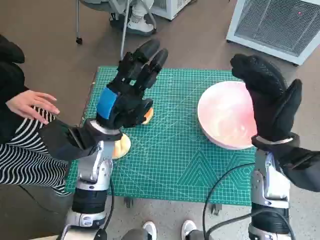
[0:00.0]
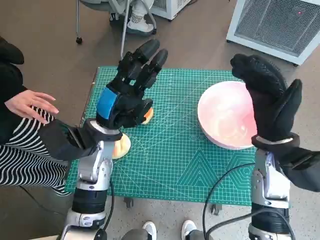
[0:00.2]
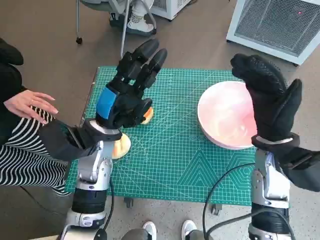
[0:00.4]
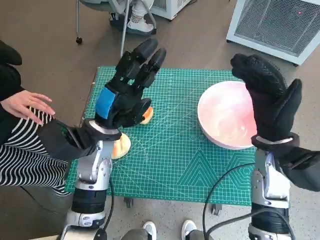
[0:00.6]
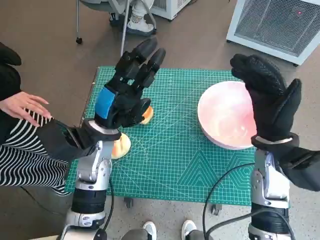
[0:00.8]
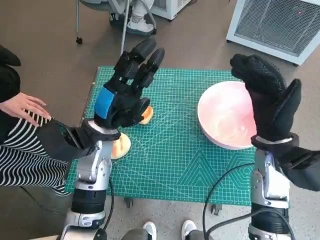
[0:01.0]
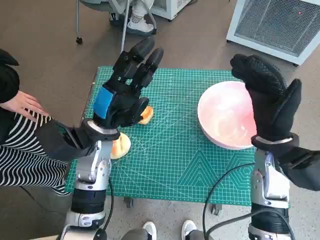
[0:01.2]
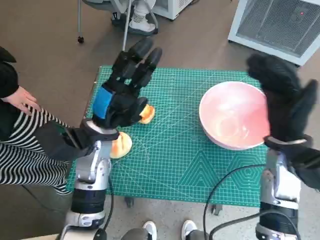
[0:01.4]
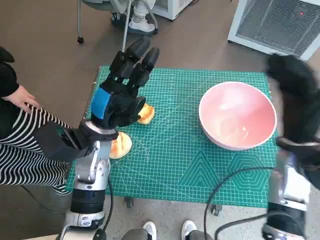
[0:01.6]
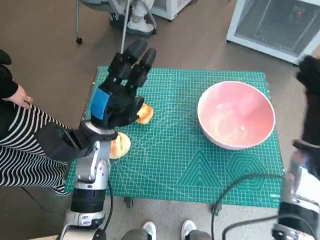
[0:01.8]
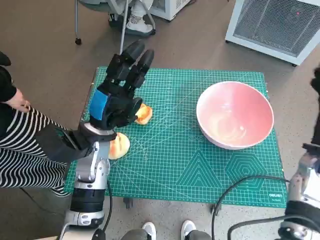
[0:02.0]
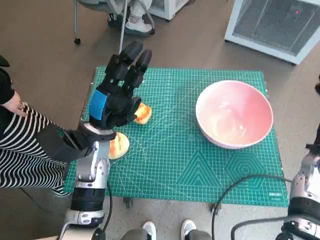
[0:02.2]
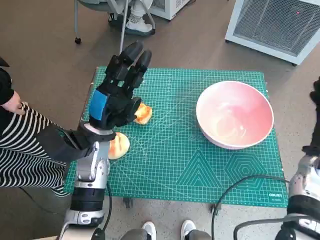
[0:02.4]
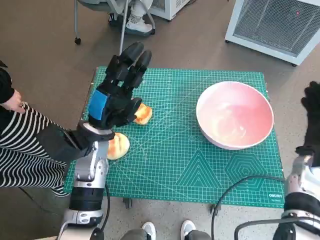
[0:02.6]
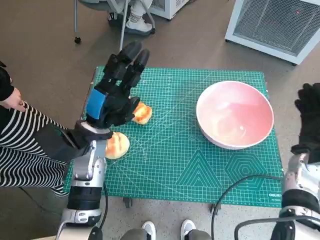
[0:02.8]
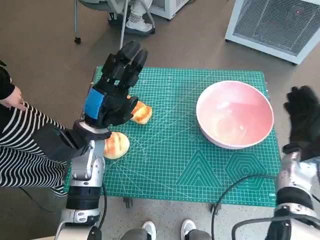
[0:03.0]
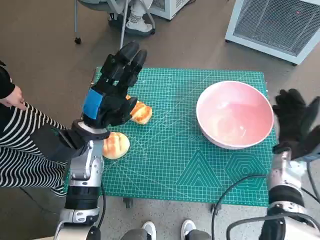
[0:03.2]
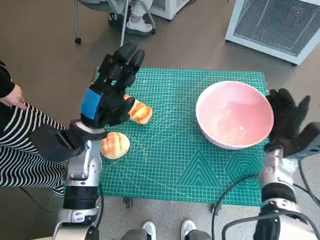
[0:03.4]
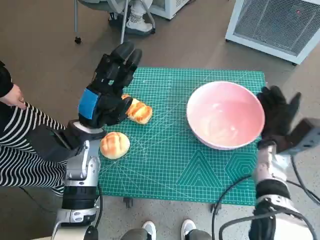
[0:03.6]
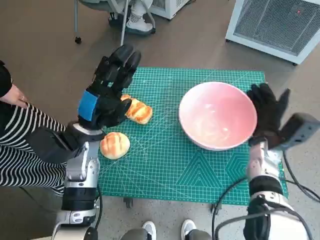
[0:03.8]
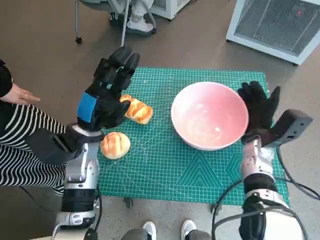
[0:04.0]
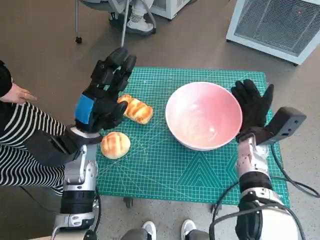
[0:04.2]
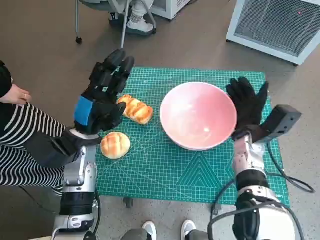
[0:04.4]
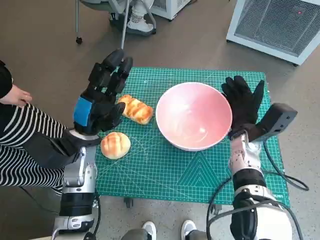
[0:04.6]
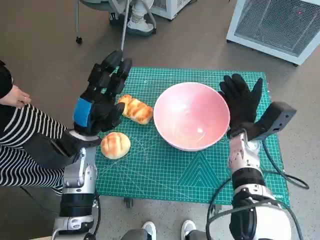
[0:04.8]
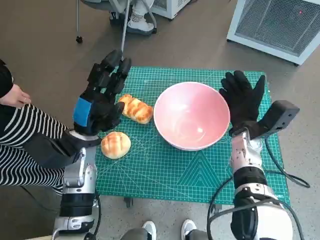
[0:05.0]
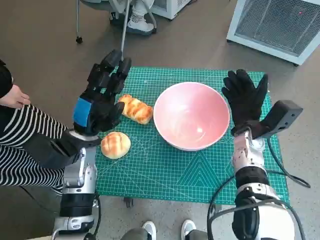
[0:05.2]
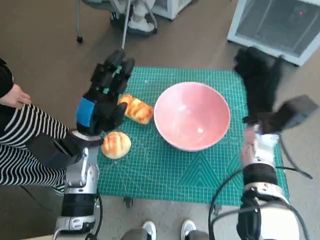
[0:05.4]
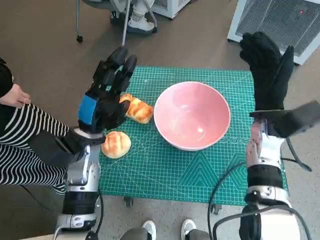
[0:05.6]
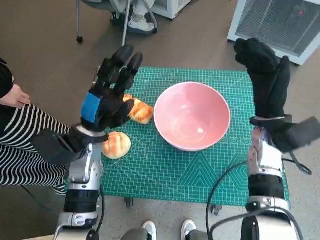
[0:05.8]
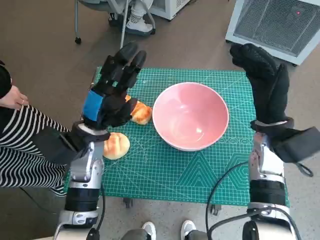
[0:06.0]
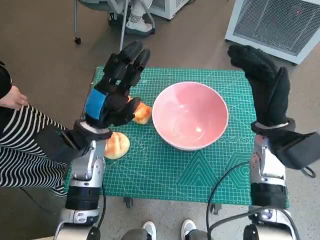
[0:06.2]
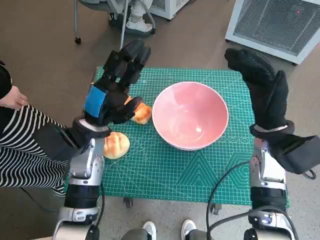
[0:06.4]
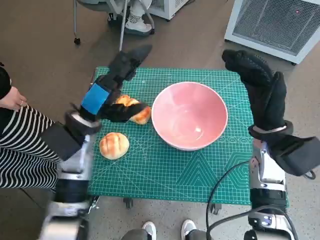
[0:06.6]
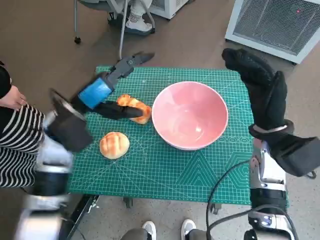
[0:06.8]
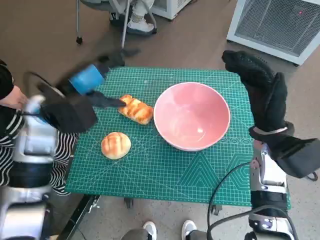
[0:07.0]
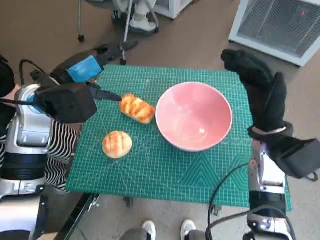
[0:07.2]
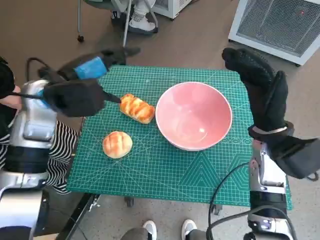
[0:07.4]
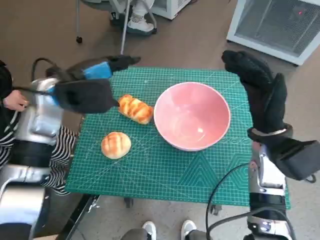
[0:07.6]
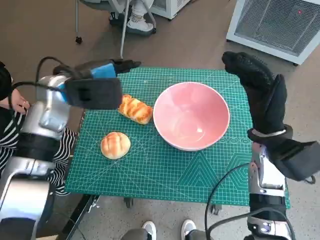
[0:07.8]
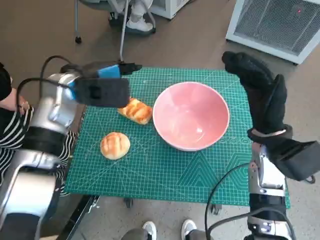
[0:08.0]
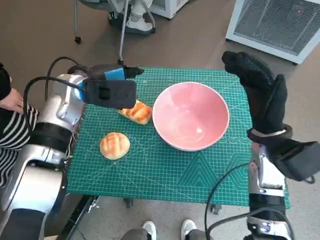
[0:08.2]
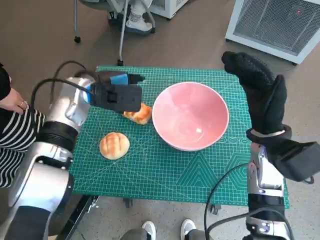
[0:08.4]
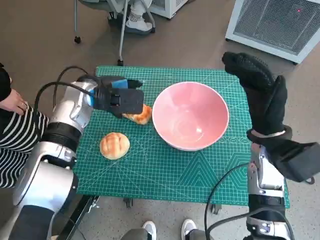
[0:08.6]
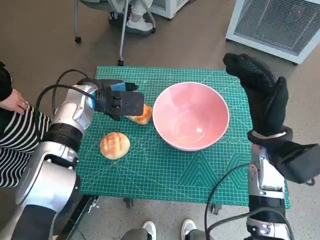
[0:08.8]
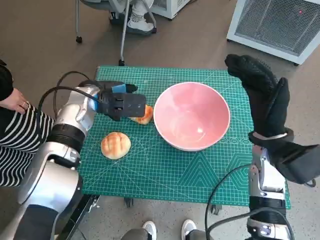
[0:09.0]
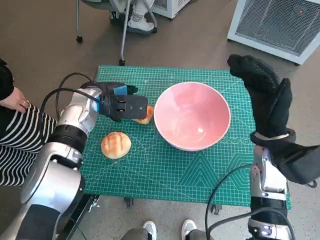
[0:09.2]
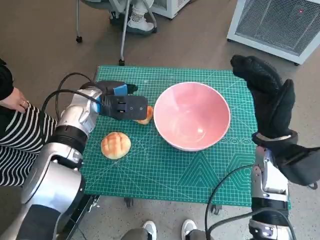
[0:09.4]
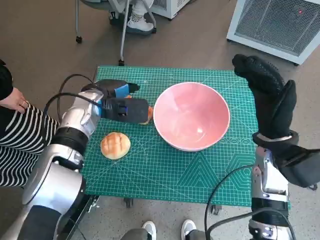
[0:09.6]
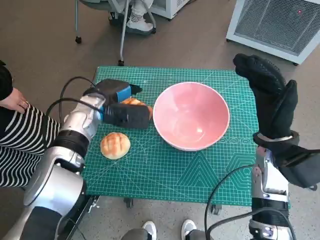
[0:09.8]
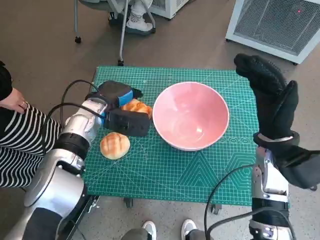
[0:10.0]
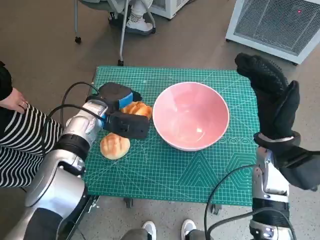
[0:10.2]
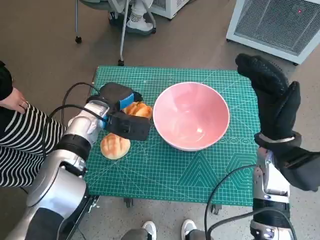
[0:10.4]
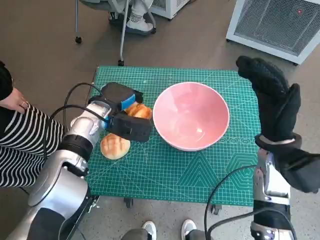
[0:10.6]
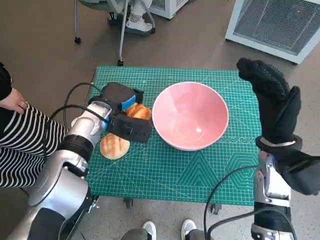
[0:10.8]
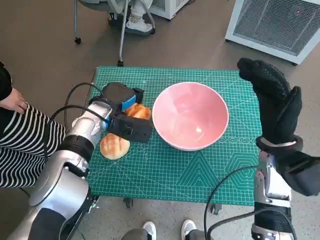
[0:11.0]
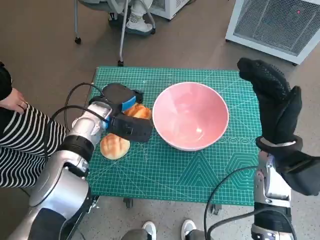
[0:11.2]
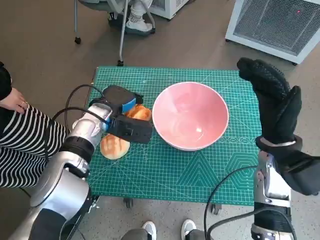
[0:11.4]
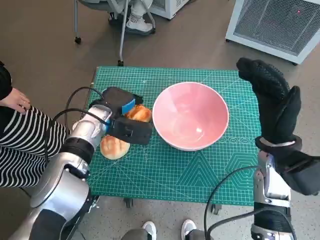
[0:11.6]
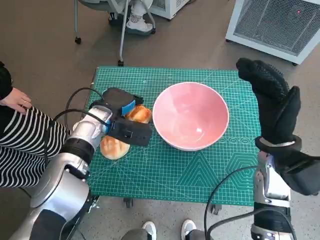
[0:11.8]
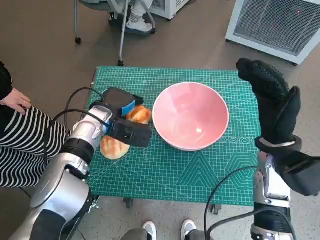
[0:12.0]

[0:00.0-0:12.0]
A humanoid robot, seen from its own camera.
Task of the whole recording: Push the bowl into the center of the table and put the bread into the bowl.
Step, 0:00.0 to 0:05.0: Move the pink bowl to the center of table with right hand.
Step, 0:05.2 to 0:10.8: Grasp the long bread with left hand.
0:01.6 to 0:03.0: The right hand is displaced downward by some 10 cm.
0:03.0 to 0:04.4: The right hand goes roughly 10 cm to the left.
0:04.4 to 0:06.0: The right hand travels upward by approximately 10 cm.
0:06.0 to 0:07.6: The left hand travels upward and forward by about 10 cm.
0:07.6 to 0:09.0: The left hand is displaced downward by roughly 5 cm.
0:10.4 to 0:12.0: There are only small adjustments of the hands.

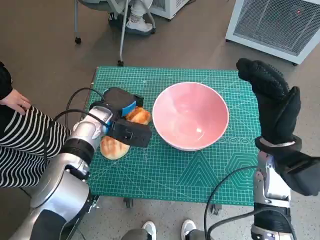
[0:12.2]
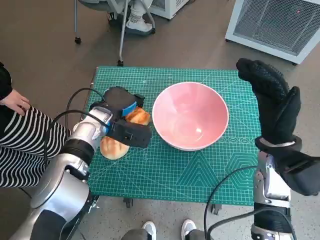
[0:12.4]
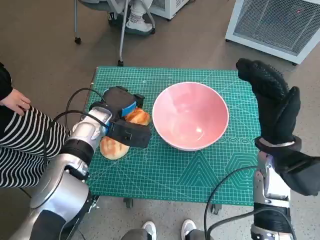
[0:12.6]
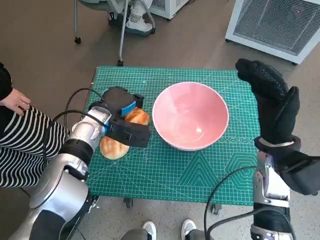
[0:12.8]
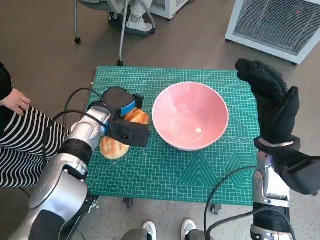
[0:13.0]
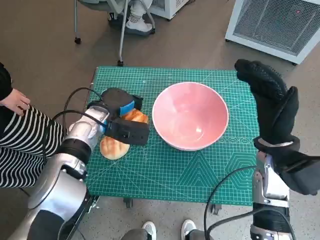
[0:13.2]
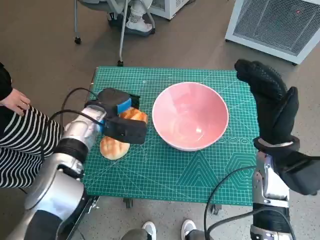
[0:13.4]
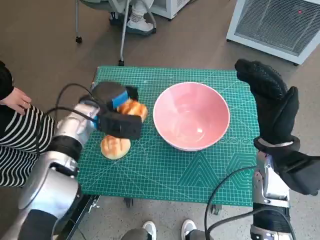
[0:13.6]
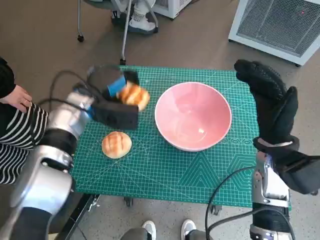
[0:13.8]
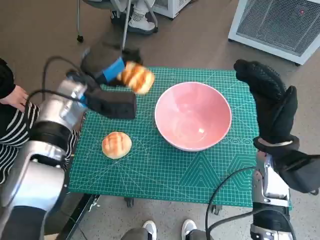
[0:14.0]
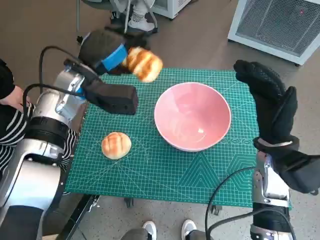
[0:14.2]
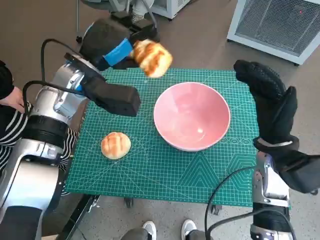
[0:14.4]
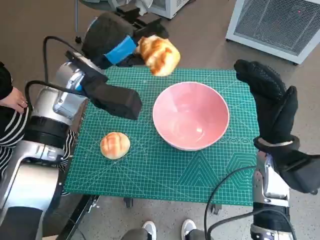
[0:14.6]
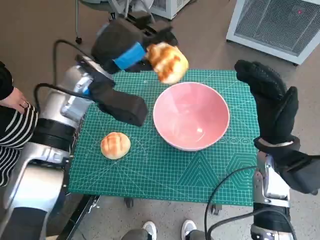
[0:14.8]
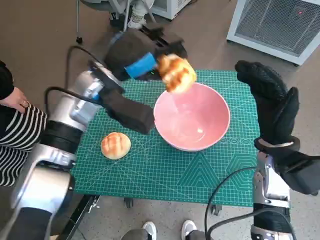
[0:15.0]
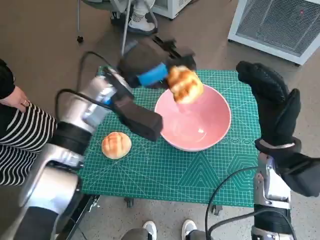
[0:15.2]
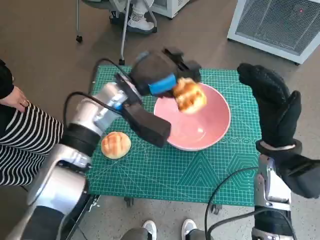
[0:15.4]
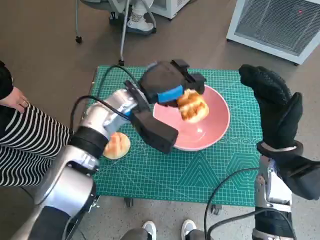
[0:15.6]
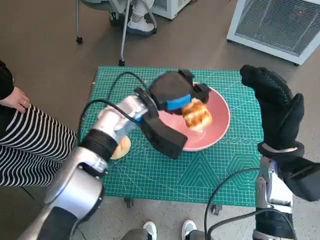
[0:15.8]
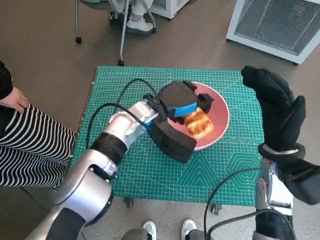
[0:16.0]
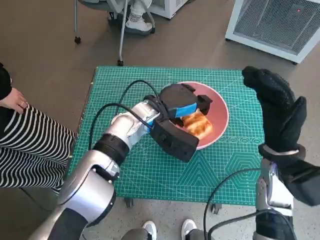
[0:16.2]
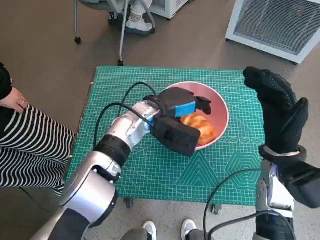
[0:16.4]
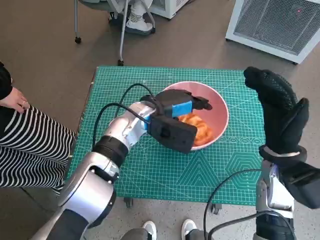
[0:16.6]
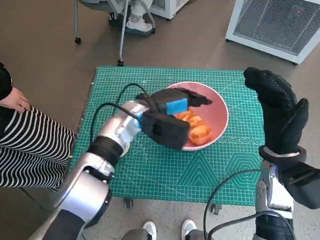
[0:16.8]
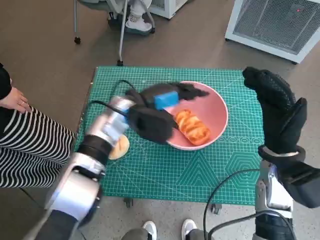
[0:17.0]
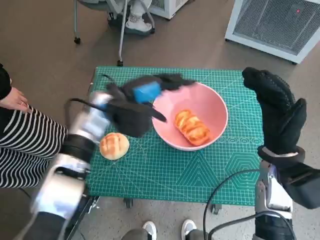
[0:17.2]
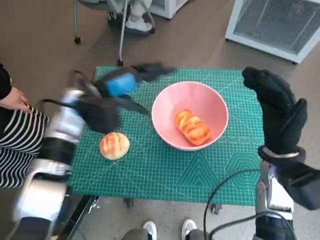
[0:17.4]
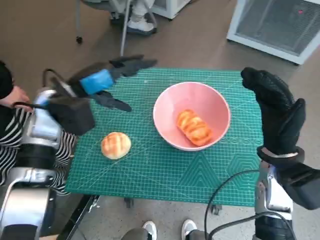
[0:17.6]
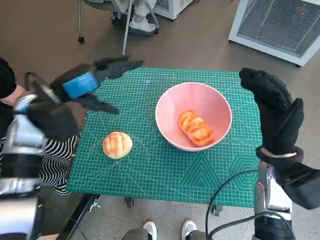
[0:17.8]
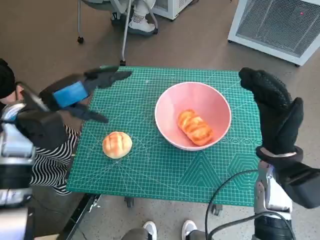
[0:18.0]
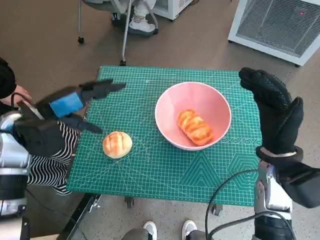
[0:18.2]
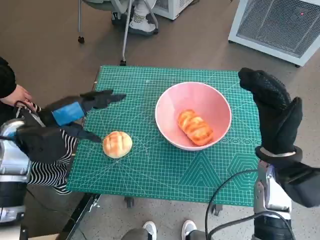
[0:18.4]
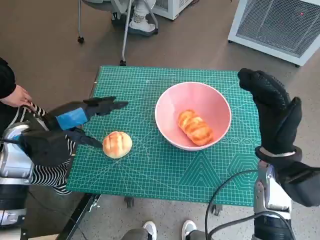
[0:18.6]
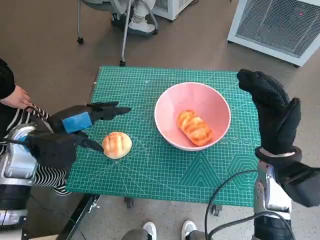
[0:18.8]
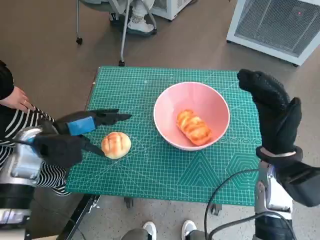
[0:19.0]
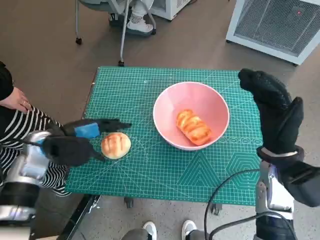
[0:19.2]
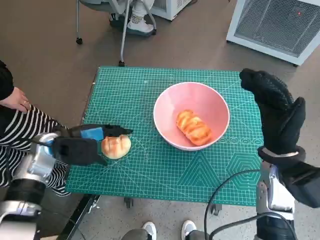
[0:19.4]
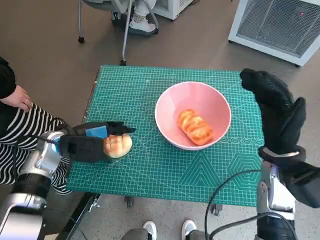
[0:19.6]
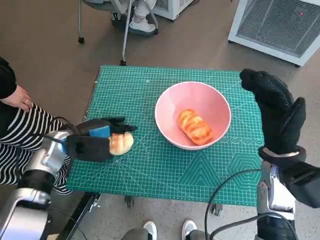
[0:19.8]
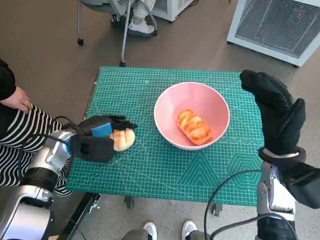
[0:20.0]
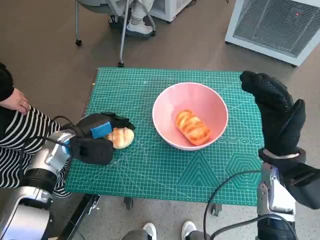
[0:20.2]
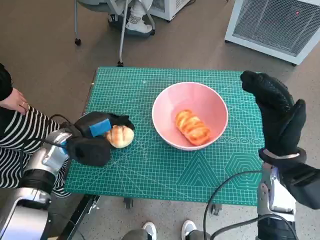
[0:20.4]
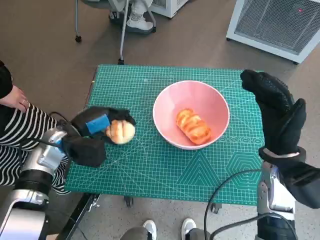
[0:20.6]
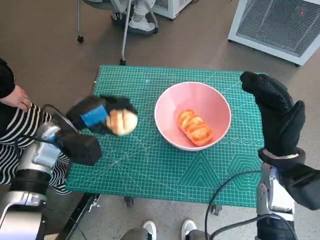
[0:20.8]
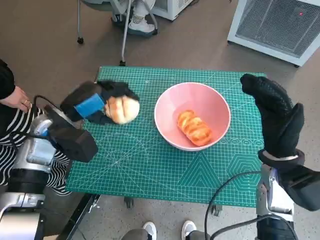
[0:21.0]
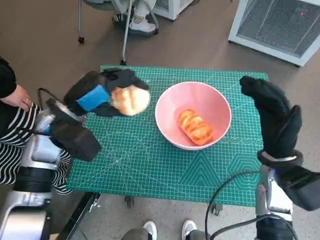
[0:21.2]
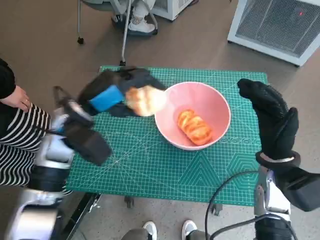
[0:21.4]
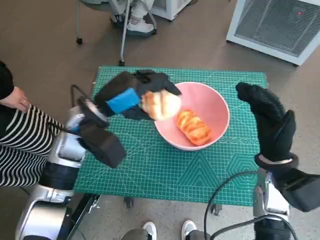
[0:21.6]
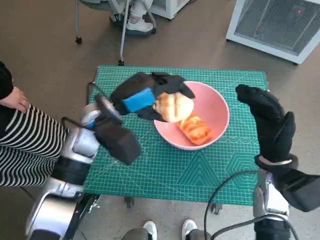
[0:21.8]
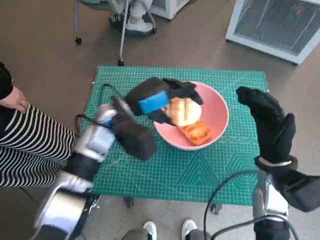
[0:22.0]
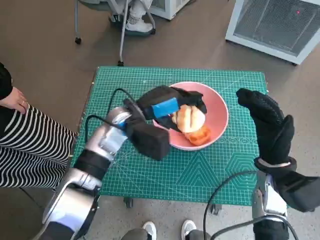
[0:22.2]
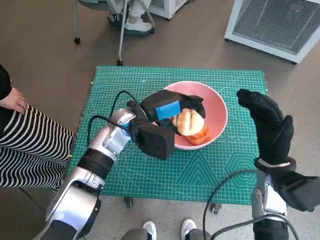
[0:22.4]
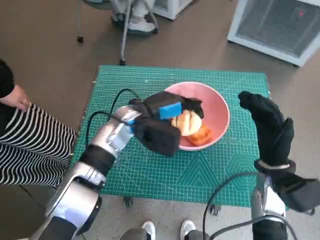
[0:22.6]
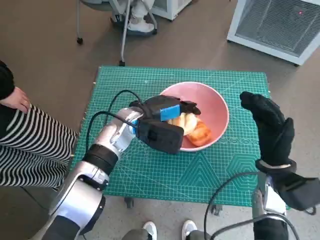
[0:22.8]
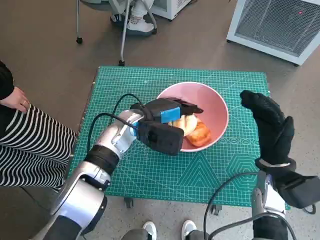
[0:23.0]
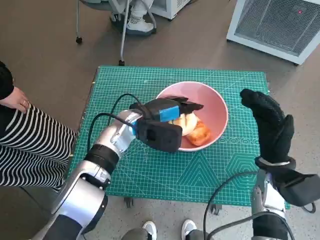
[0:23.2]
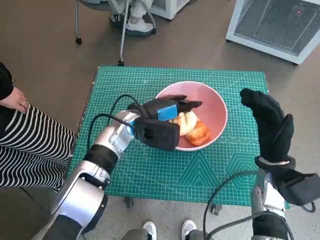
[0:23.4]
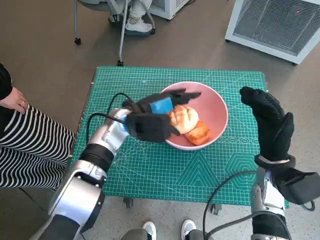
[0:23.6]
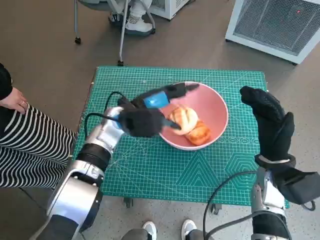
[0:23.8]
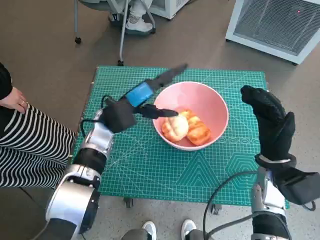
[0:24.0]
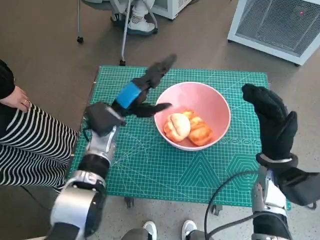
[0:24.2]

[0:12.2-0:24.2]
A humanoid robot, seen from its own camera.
Task of the whole recording: Push the bowl into the center of the table and put the bread into the bowl.
Step, 0:12.2 to 0:17.2: Place the long bread in pink bowl with left hand.
Step, 0:17.4 to 0:20.2: Grasp the round bread with left hand.
Step, 0:20.4 to 0:24.0: Place the round bread in pink bowl with left hand.
0:12.2 to 0:13.8: The left hand changes place by some 5 cm.
0:13.8 to 0:15.2: The left hand is displaced to the right and upward by roughly 10 cm.
0:15.2 to 0:16.6: The left hand moves downward and to the right, some 10 cm.
0:16.6 to 0:18.2: The left hand moves to the left, some 20 cm.
0:18.2 to 0:19.8: The left hand is displaced downward by about 10 cm.
0:19.8 to 0:21.2: The left hand moves upward, some 10 cm.
0:21.2 to 0:22.6: The left hand moves to the right, about 15 cm.
0:22.6 to 0:24.2: The left hand shifts some 5 cm to the left.
